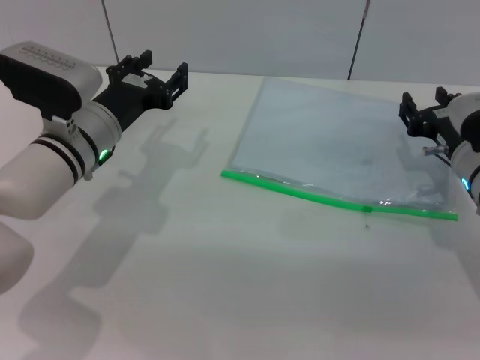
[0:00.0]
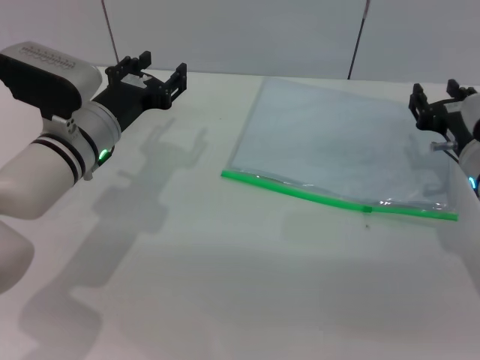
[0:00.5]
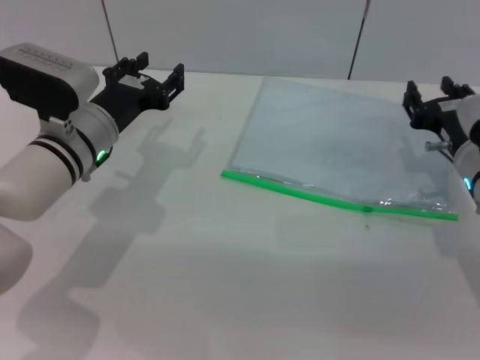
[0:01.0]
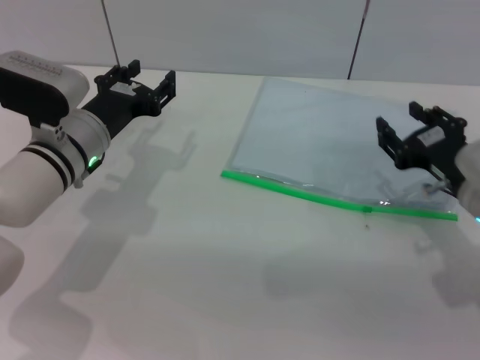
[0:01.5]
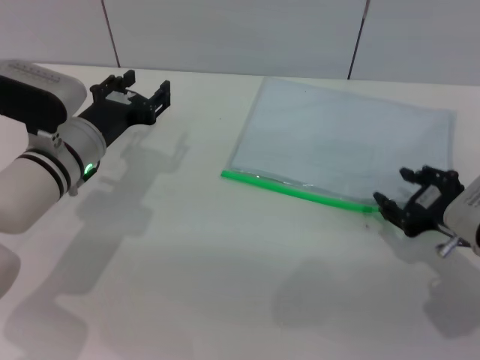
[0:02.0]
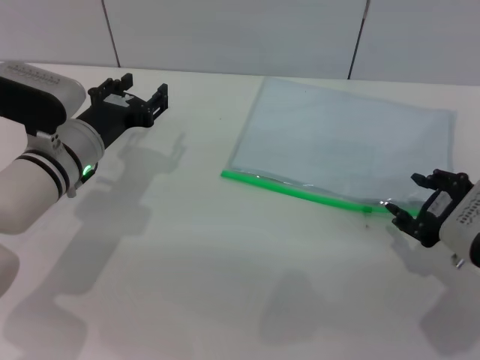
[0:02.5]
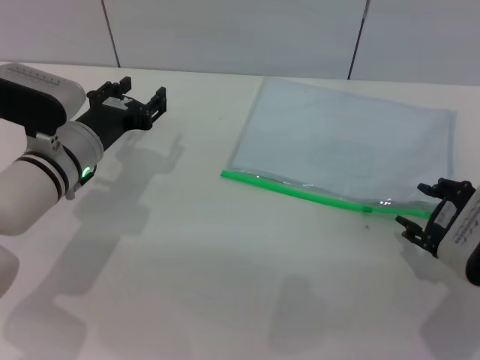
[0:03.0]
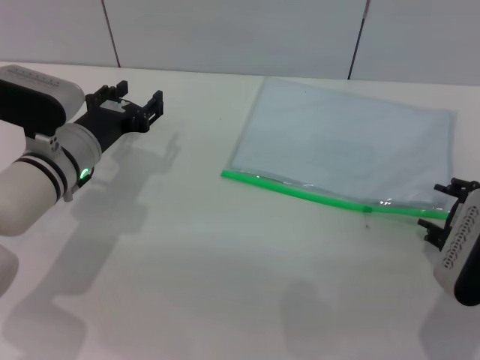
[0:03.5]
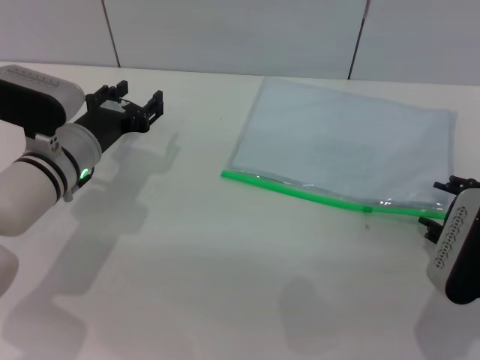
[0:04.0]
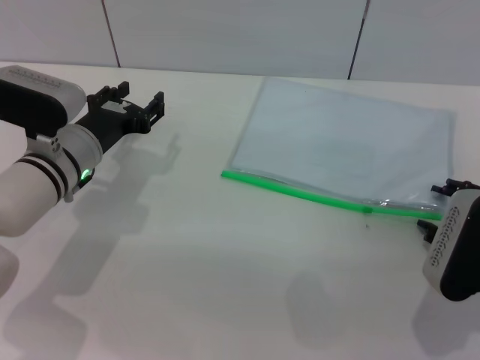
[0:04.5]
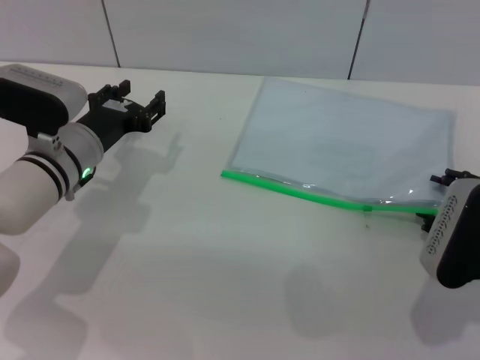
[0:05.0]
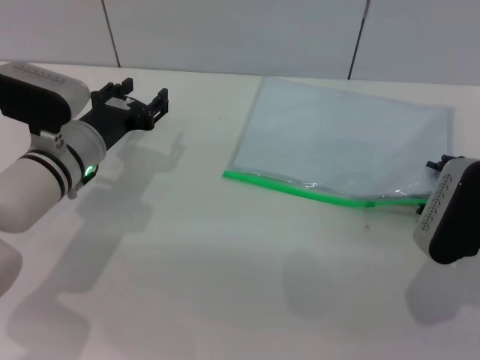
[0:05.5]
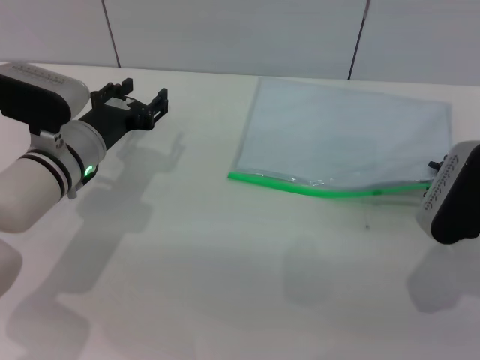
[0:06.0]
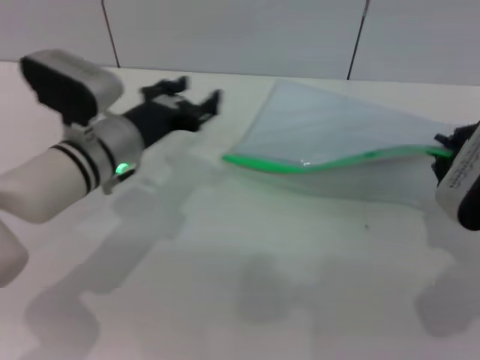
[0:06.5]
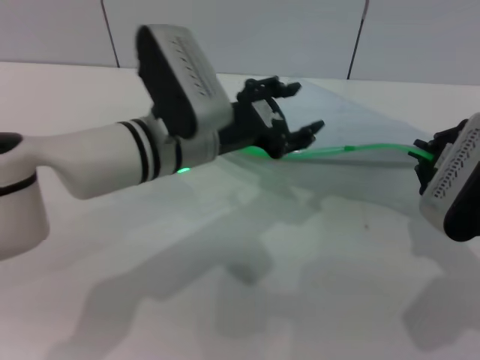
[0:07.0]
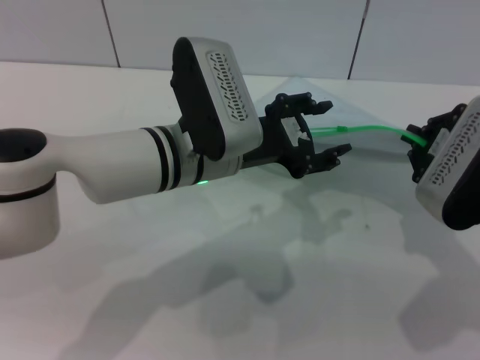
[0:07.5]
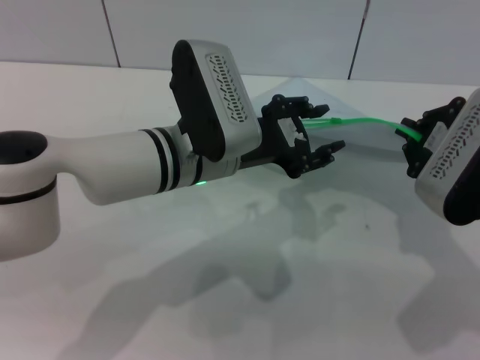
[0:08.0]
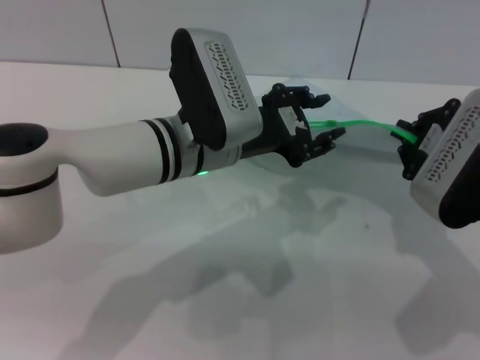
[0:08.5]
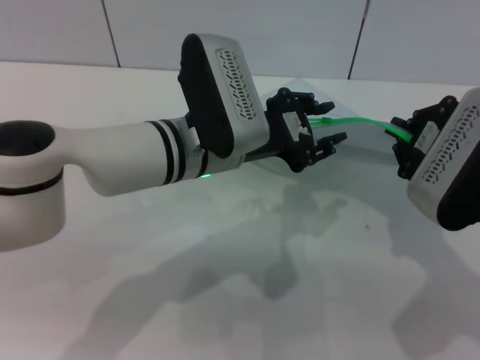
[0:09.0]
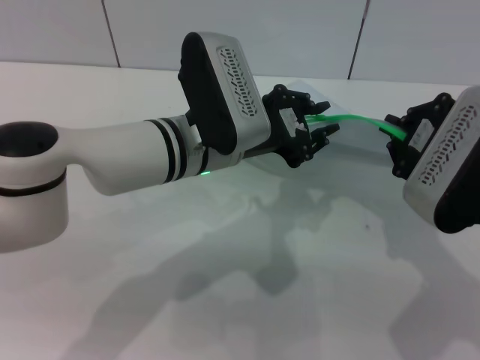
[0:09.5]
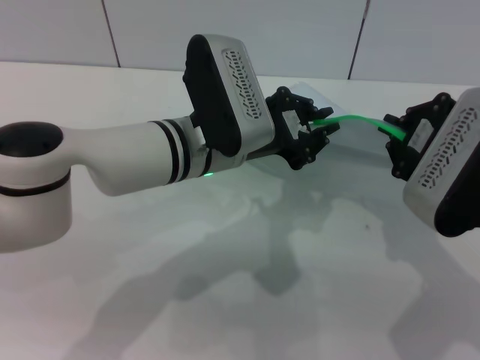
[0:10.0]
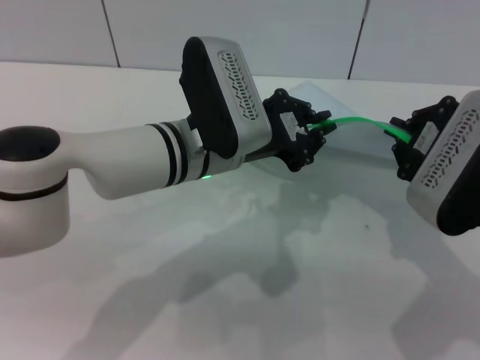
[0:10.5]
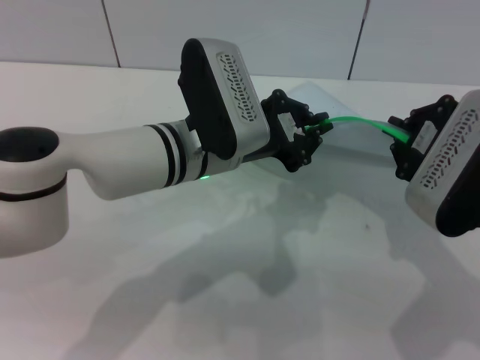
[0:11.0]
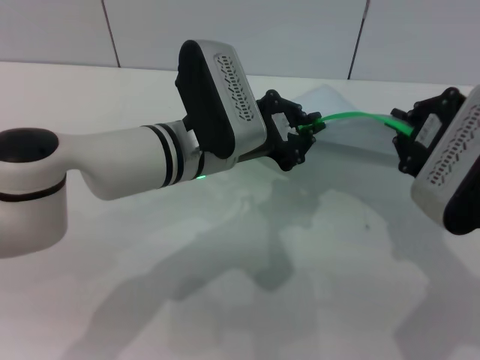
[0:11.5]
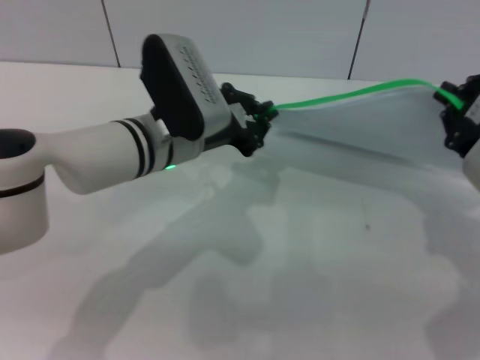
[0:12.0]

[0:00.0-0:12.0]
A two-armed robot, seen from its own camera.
Step, 0:00.0 to 0:06.5: Pick up the transparent plastic bag with the right gripper.
0:00.0 to 0:02.0: The right gripper shifts some 10 cm backward.
0:04.0 to 0:06.0: The grippers make only small movements.
0:06.0 to 0:08.0: The left gripper goes roughly 15 cm to the right and upward. Meanwhile the right gripper is displaced upward by roughly 10 cm, and closes.
0:08.0 to 0:10.0: The left gripper closes up.

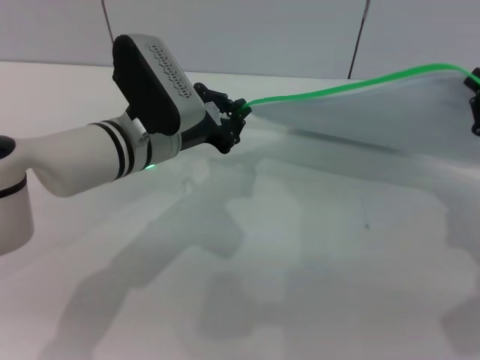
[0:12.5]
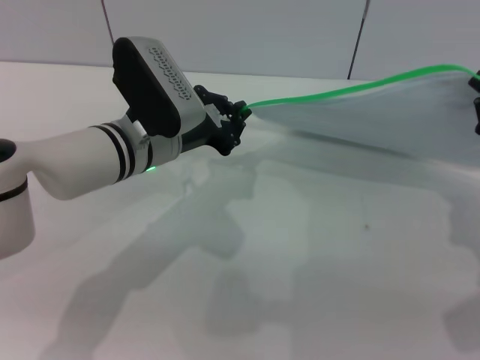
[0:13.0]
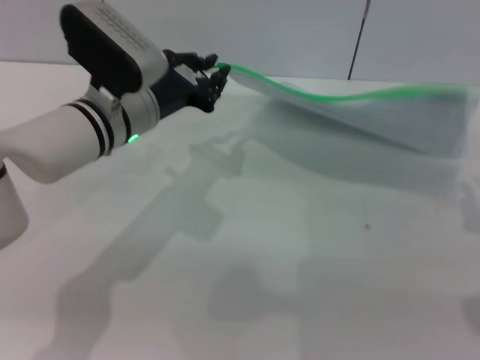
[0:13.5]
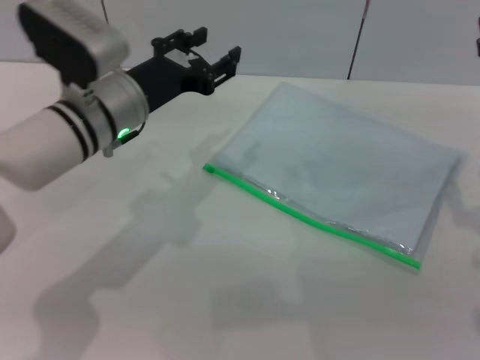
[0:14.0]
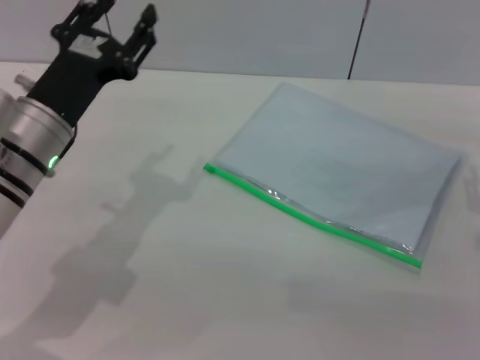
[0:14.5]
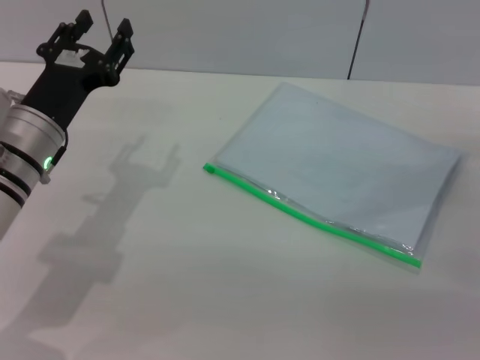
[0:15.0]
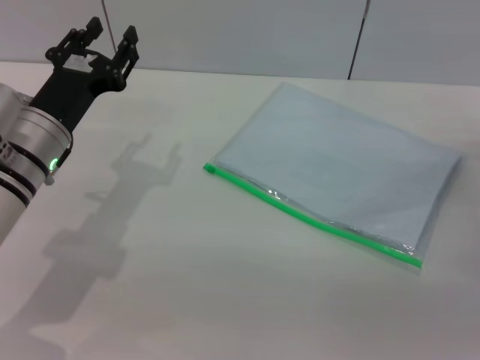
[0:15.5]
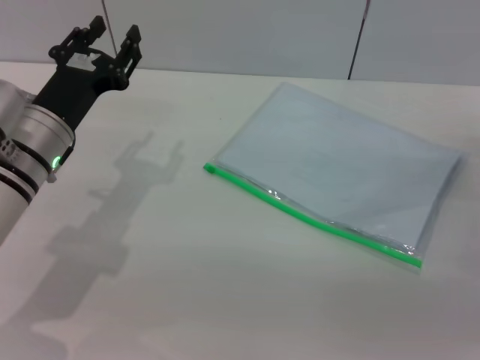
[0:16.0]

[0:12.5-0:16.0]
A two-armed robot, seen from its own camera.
Step, 0:14.0 to 0:14.5: Place the transparent plastic bag.
0:12.5 to 0:14.5: The right gripper is displaced downward by about 10 cm, and opens up, while the left gripper moves to the left and backward, roughly 10 cm, and opens up.

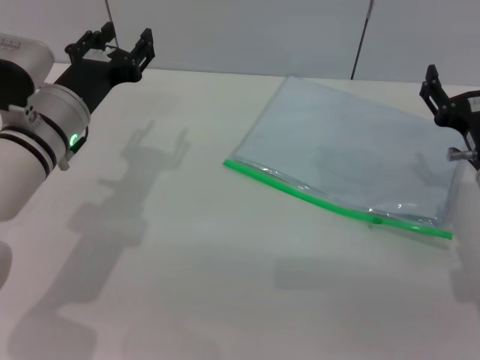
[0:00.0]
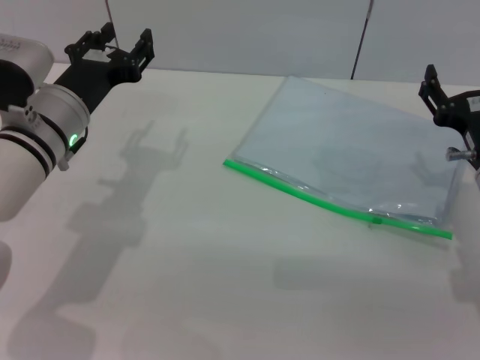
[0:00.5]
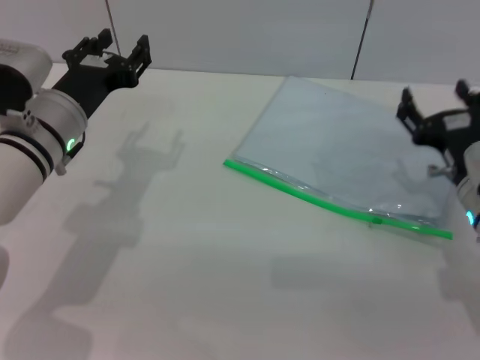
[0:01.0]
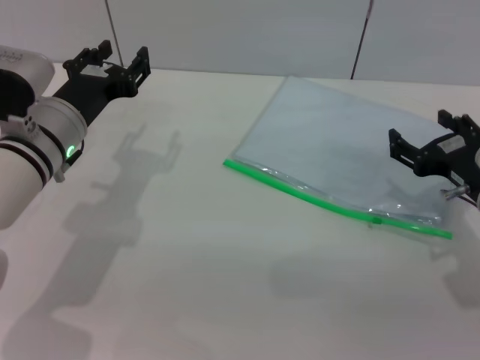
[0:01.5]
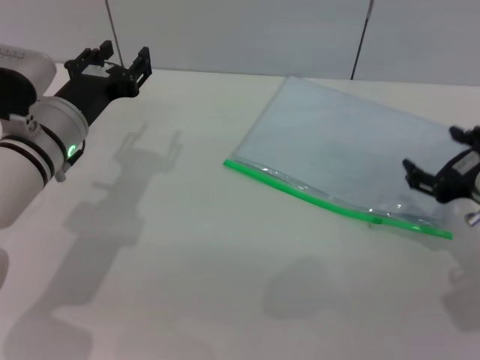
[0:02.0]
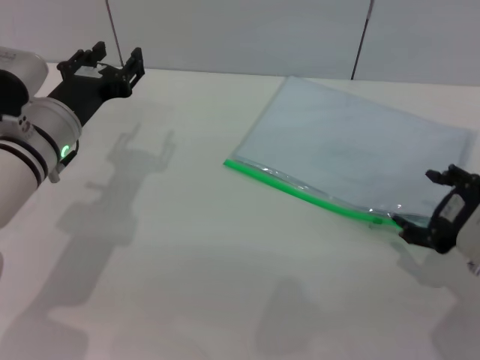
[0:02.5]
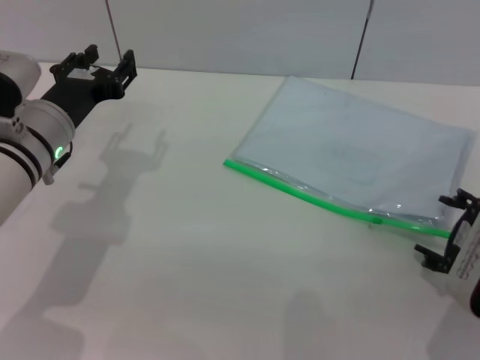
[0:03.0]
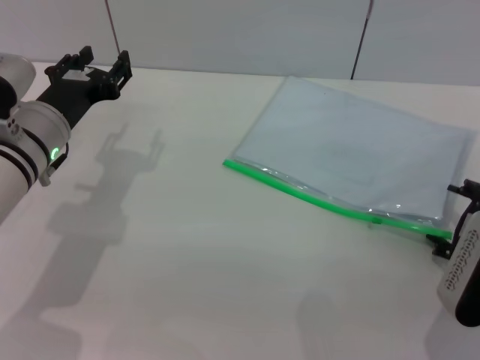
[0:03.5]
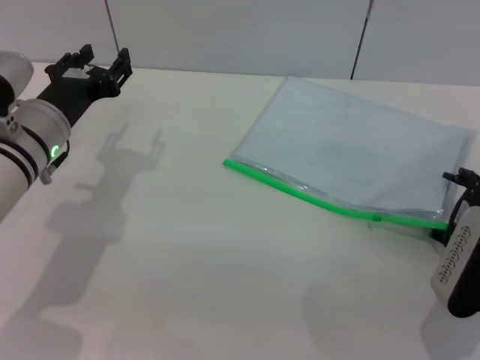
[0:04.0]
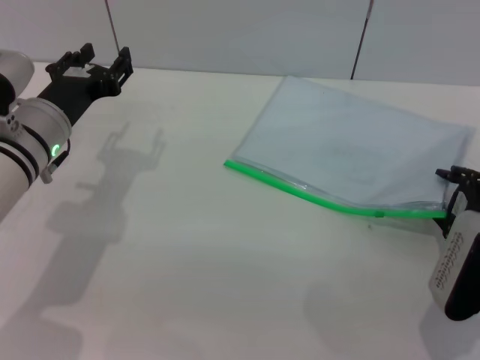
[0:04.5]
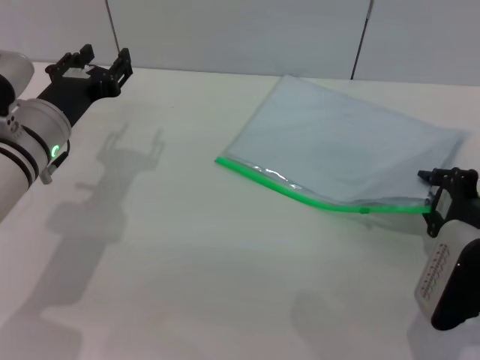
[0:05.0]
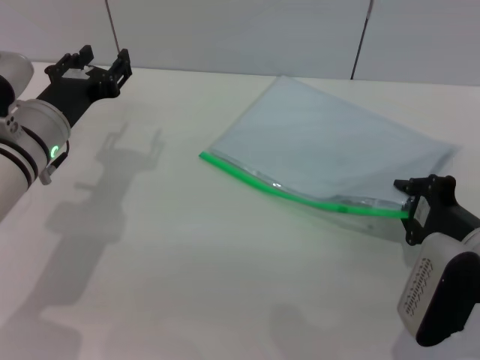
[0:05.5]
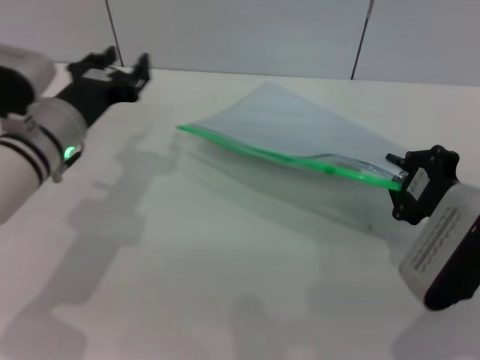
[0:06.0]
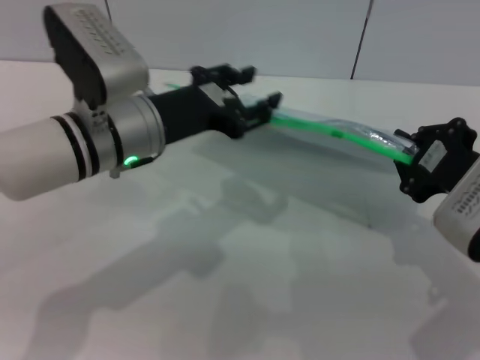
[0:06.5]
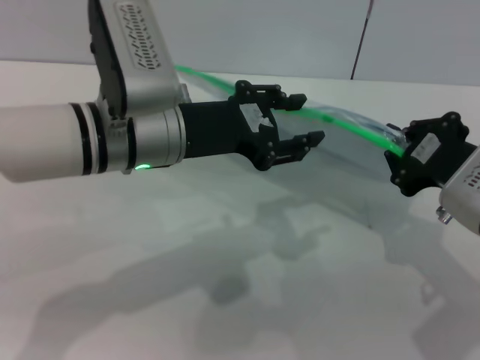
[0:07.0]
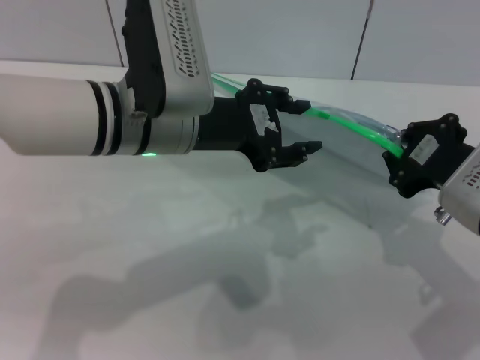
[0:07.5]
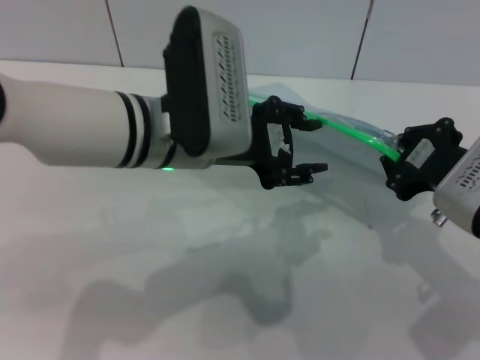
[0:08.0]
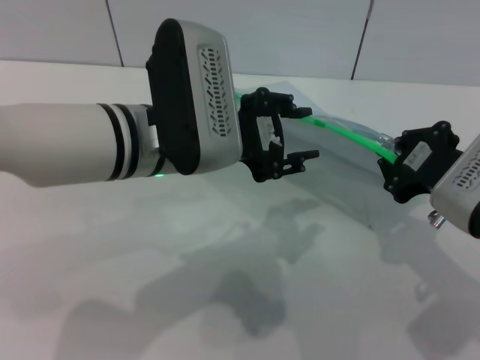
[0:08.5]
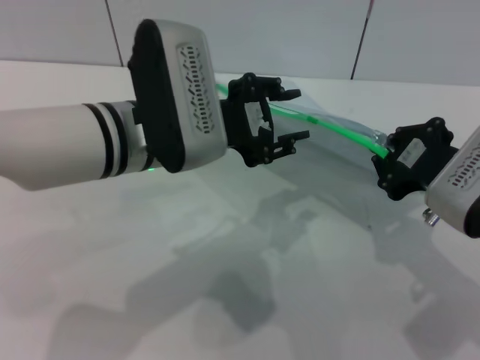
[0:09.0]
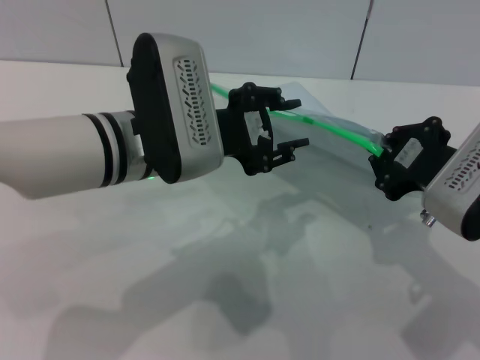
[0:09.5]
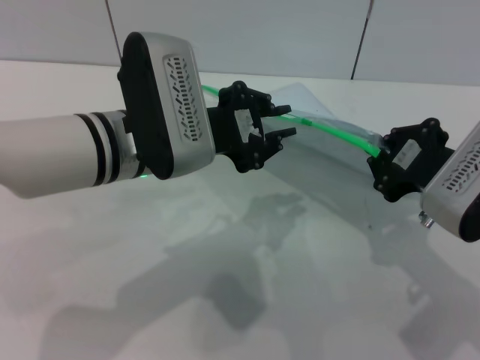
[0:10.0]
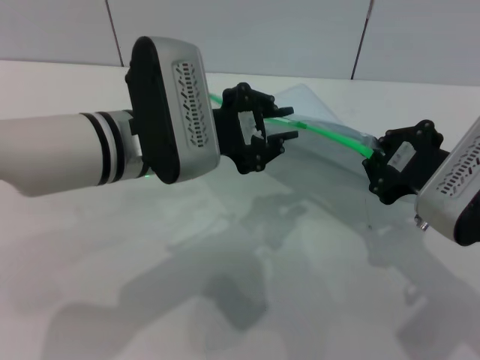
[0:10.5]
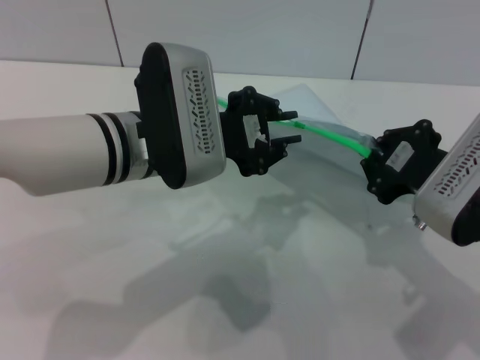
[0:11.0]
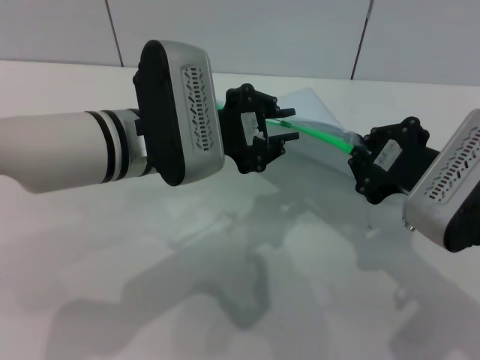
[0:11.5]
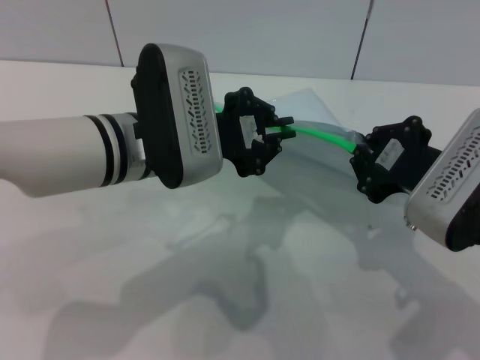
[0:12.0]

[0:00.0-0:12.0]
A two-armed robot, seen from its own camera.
Step, 0:00.0 to 0:06.5: Pick up the transparent plastic bag with the right gripper.
0:00.0 to 0:02.0: The right gripper changes place by about 5 cm.
0:04.0 to 0:06.0: The right gripper moves some 5 cm, and closes.
0:06.0 to 0:08.0: The left gripper moves to the right and upward, approximately 15 cm.
0:08.0 to 0:10.0: The left gripper closes.
0:10.0 to 0:12.0: The grippers stay close to where they were, moving slightly.
